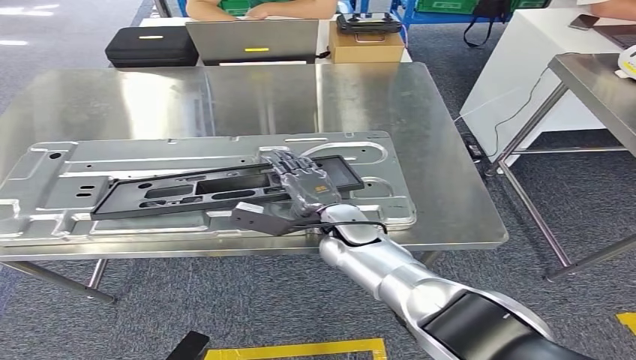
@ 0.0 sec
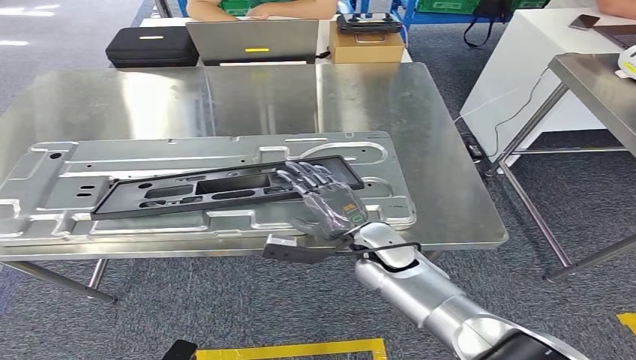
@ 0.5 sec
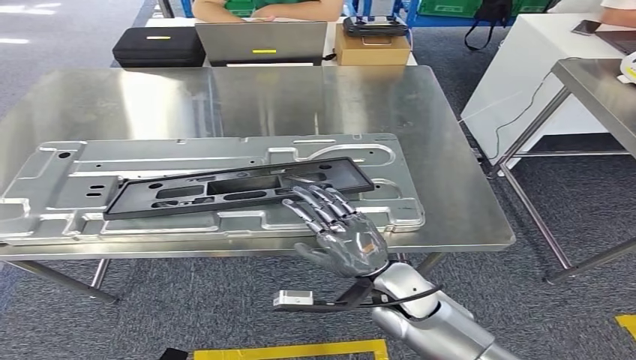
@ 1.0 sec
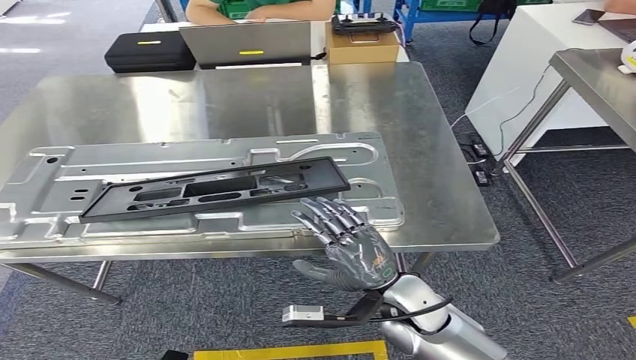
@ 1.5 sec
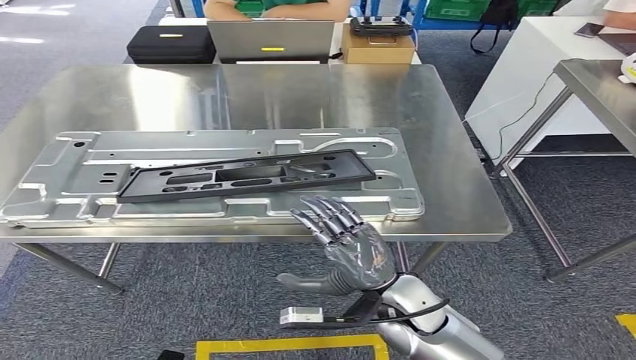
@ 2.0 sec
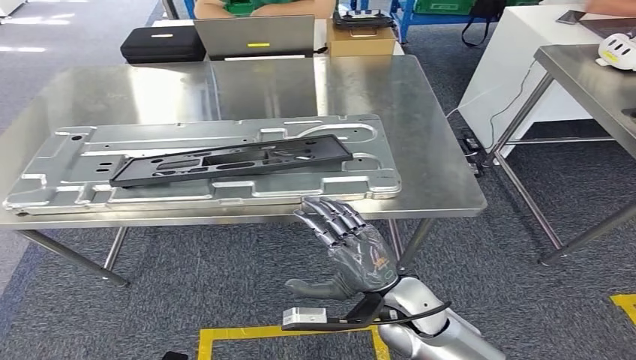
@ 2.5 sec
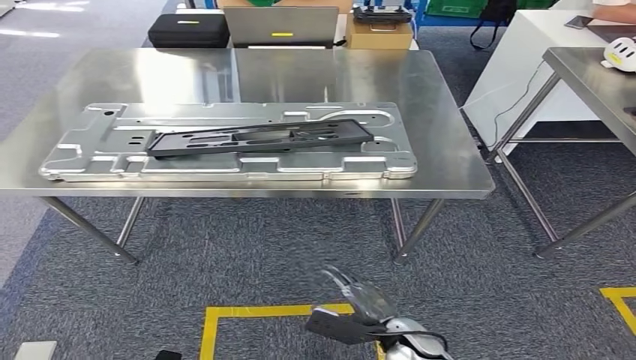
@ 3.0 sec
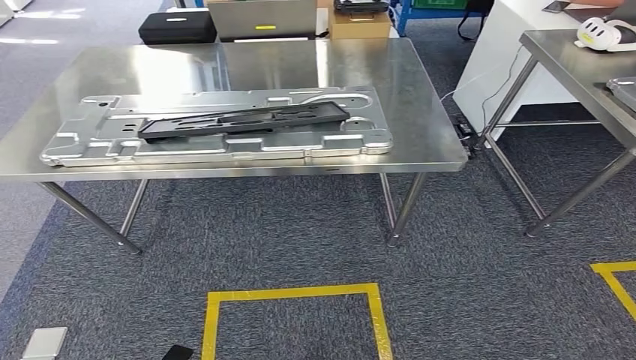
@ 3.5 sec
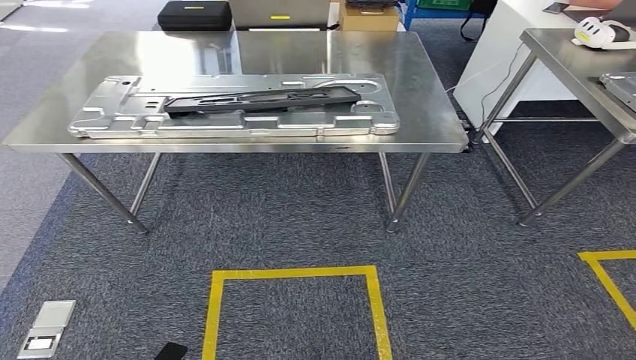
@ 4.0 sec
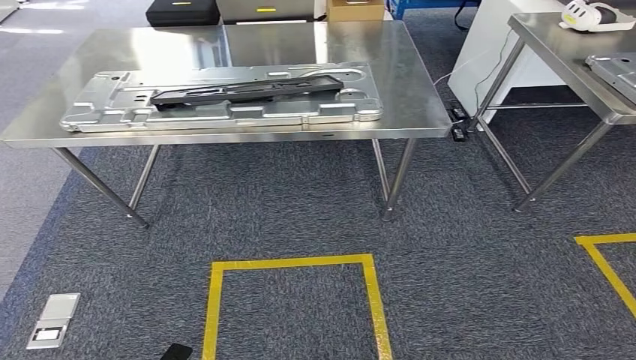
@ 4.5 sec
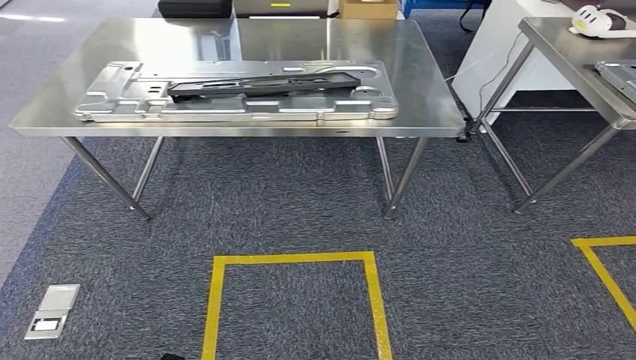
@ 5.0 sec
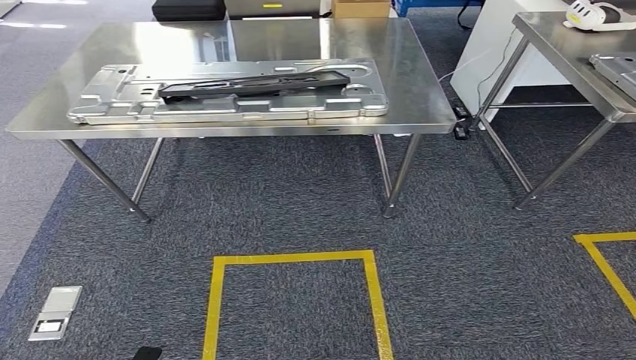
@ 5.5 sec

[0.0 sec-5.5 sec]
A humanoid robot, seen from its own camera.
Step, 1.0 sec to 5.5 sec: Return to the initial position at the workbench.
